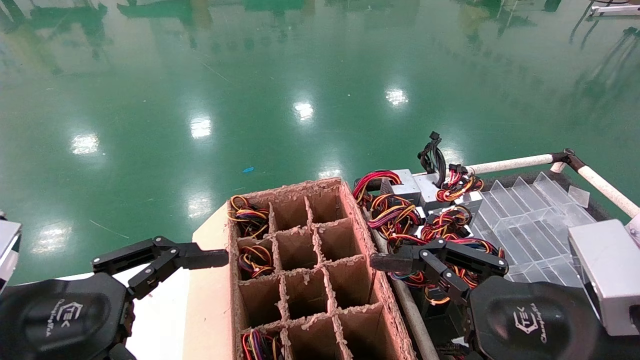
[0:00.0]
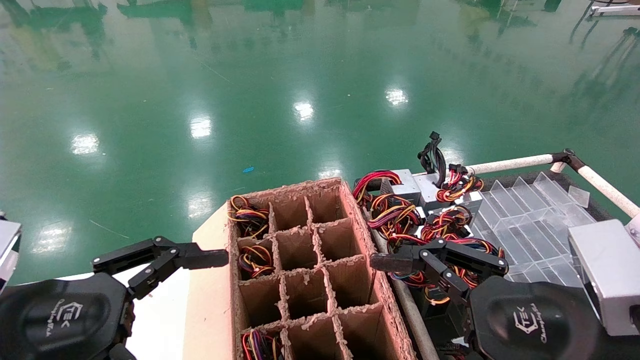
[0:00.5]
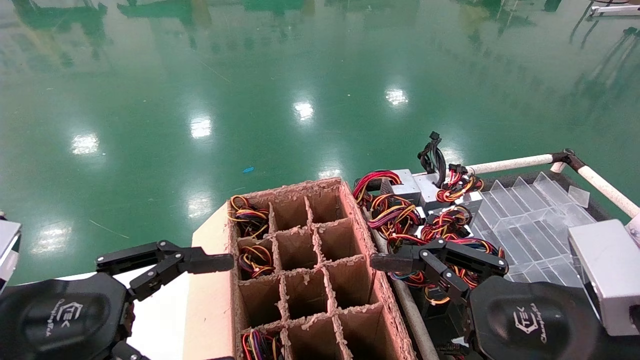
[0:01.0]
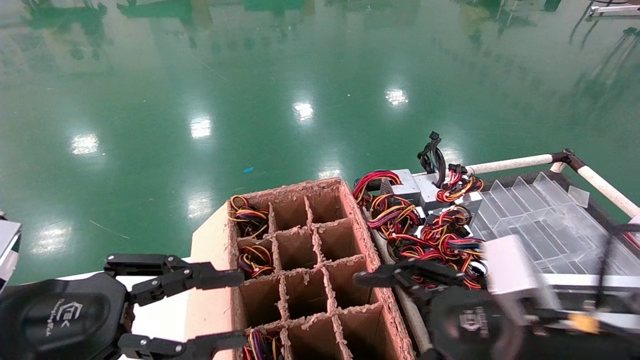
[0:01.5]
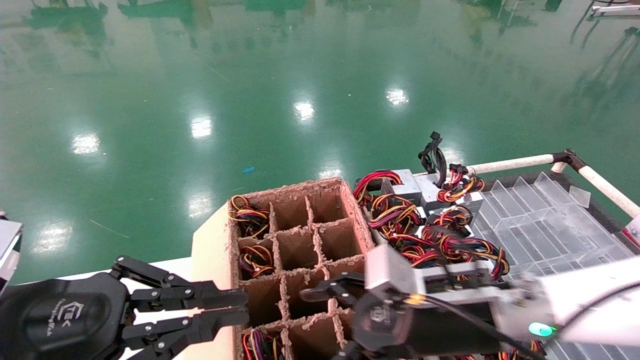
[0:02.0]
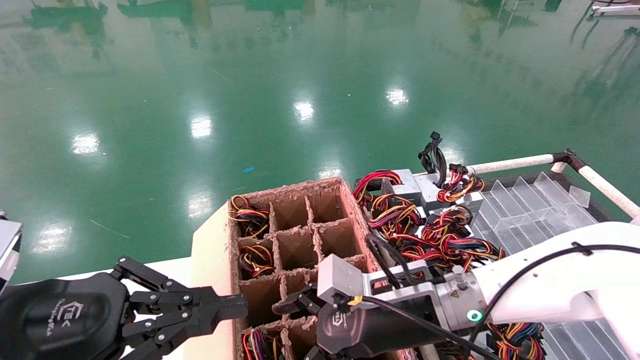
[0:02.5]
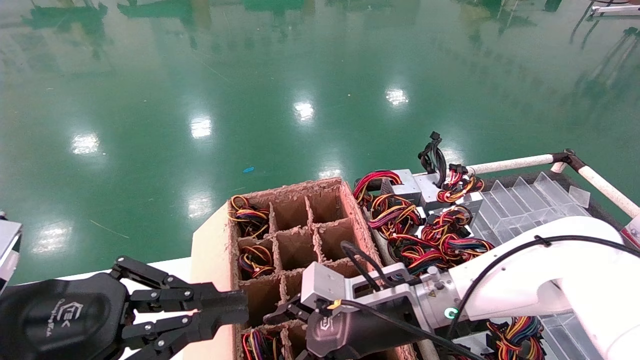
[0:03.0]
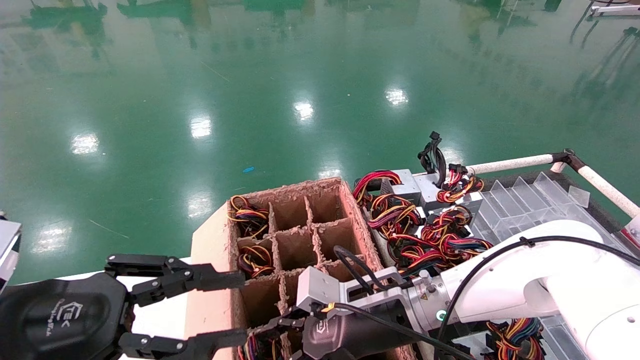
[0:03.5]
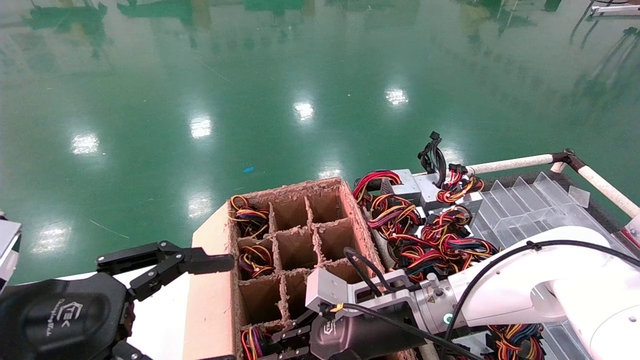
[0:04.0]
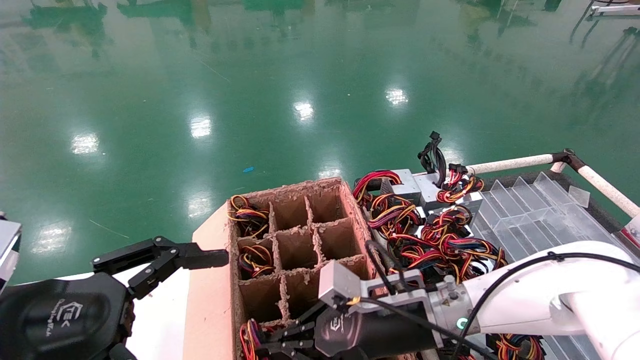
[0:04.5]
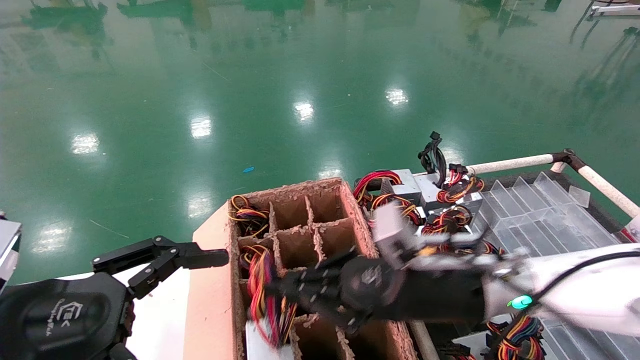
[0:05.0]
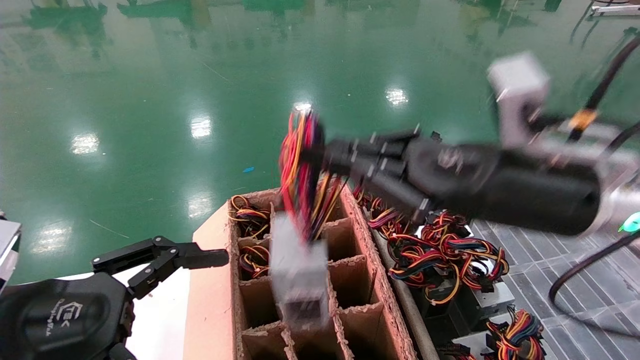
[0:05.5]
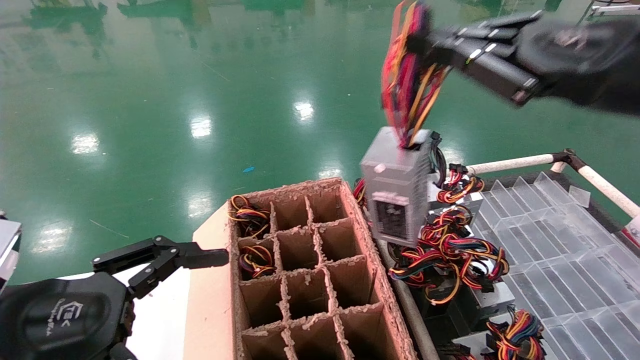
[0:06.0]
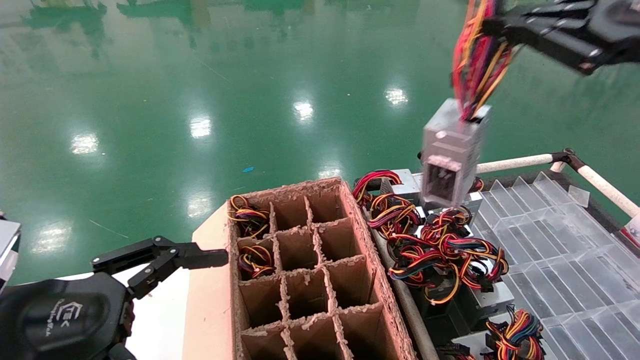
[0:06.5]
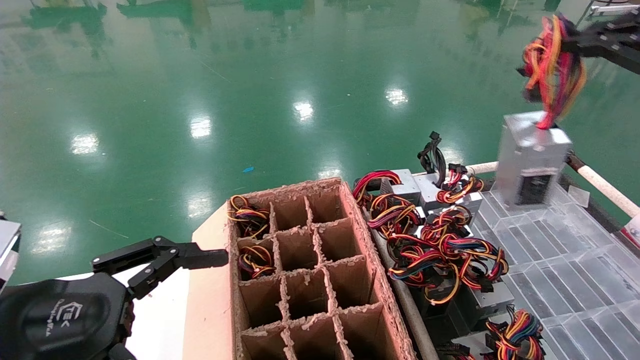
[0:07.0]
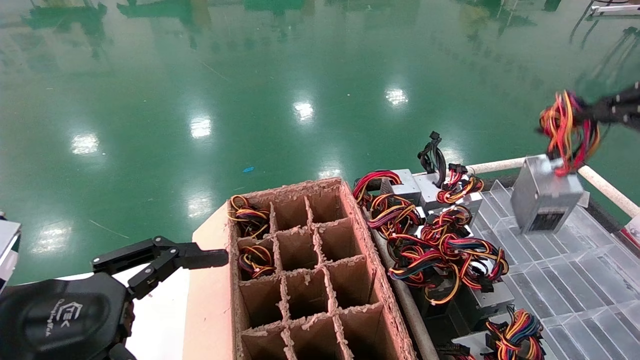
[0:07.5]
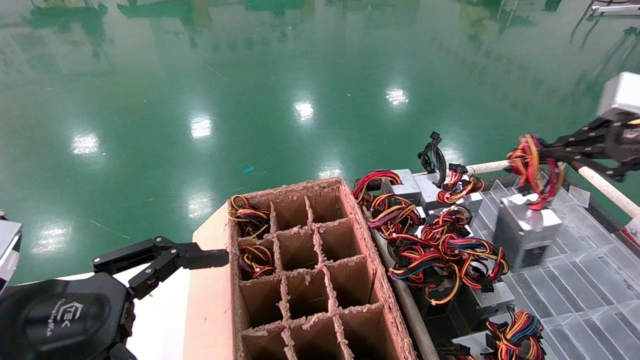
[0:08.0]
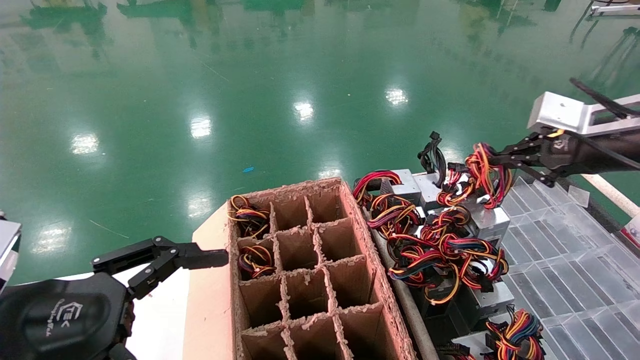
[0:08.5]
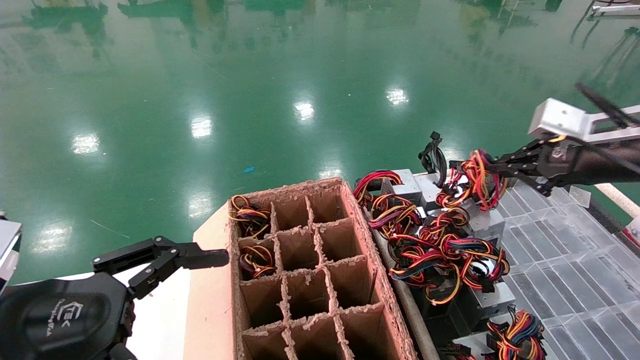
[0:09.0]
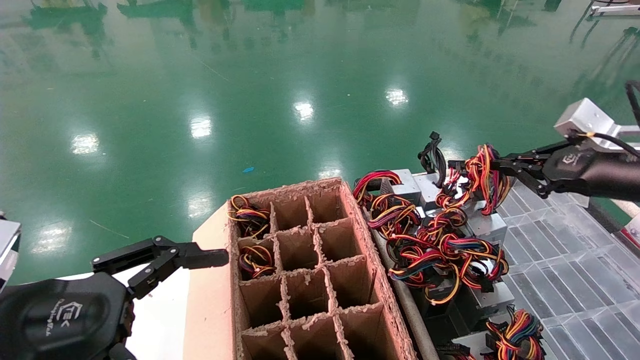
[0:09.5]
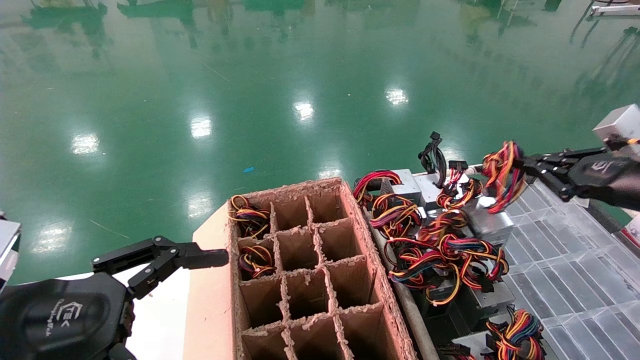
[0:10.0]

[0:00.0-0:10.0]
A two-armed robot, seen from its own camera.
Step, 0:01.5 to 0:04.0: Grab and lift the power supply from the large box.
0:00.0 to 0:02.0: The left gripper closes. The right gripper goes about 15 cm forward, to the left and downward.
0:02.0 to 0:04.0: The left gripper opens its fingers. The right gripper moves forward and to the left, approximately 10 cm, and closes.
0:04.0 to 0:06.0: The right gripper travels upward and to the right by about 35 cm.
0:06.0 to 0:08.0: The right gripper shifts approximately 15 cm to the right.
0:08.0 to 0:10.0: The right gripper moves downward, some 10 cm.

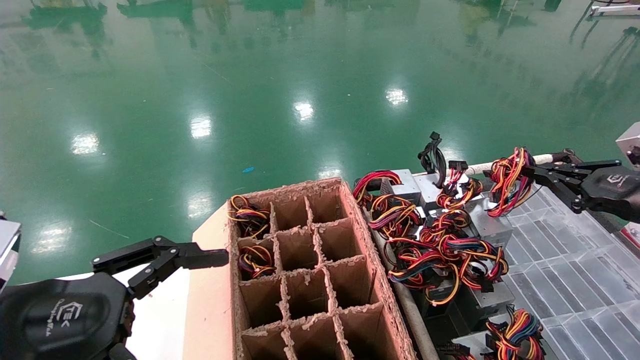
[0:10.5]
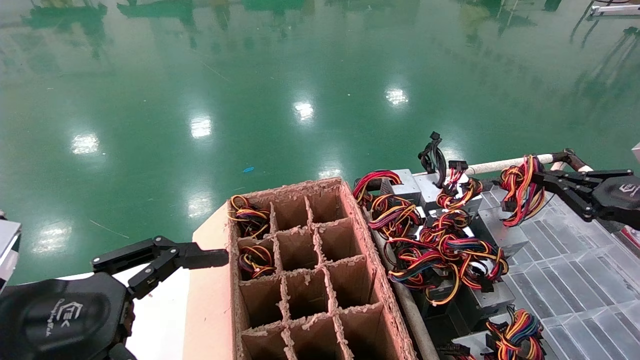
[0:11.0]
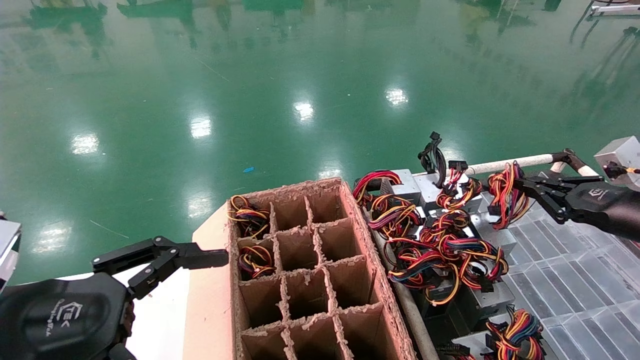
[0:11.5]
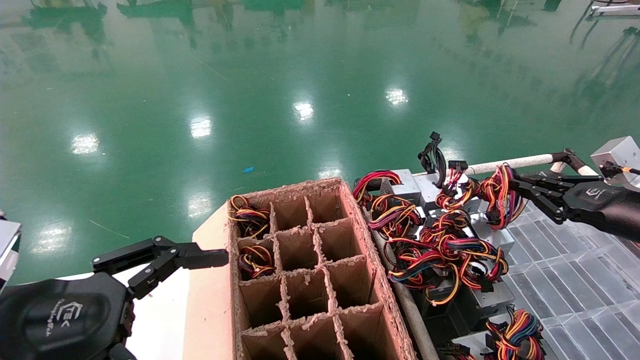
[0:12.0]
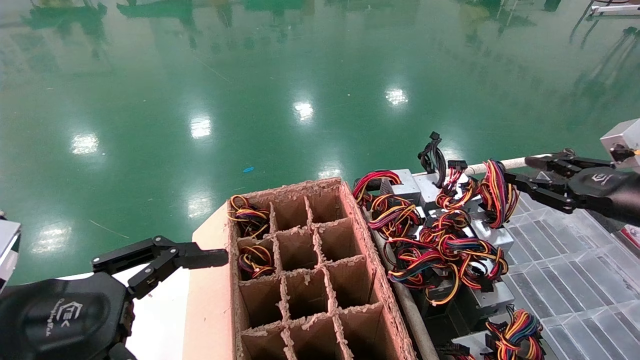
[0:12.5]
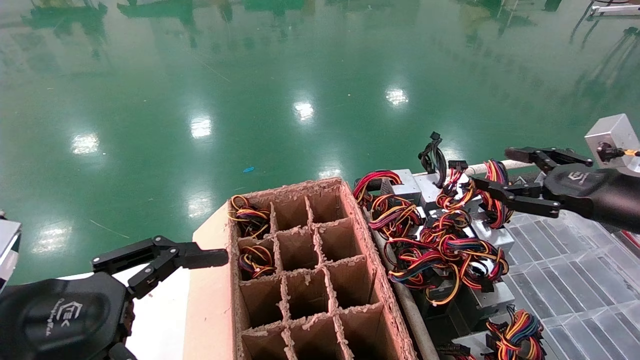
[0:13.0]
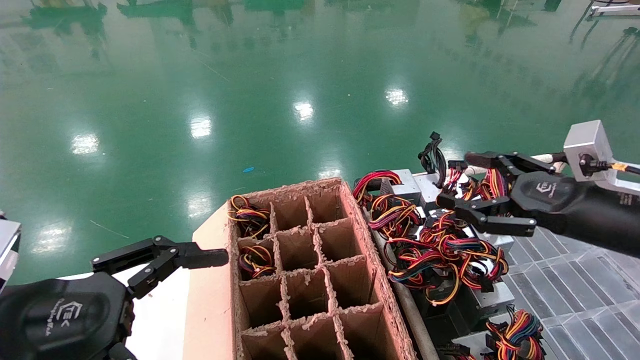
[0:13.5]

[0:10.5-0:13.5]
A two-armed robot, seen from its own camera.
0:10.5 to 0:12.0: The grippers move only a little.
0:12.0 to 0:13.5: The right gripper moves to the left, about 10 cm, and opens its fingers.

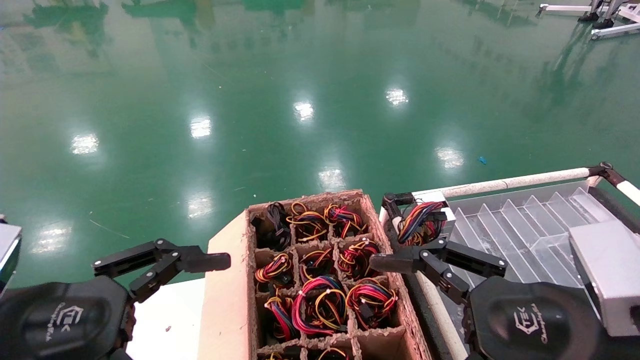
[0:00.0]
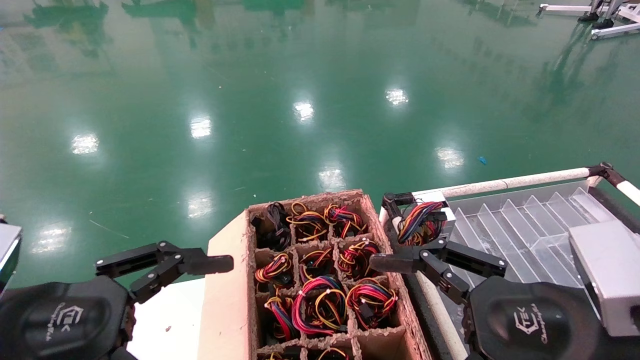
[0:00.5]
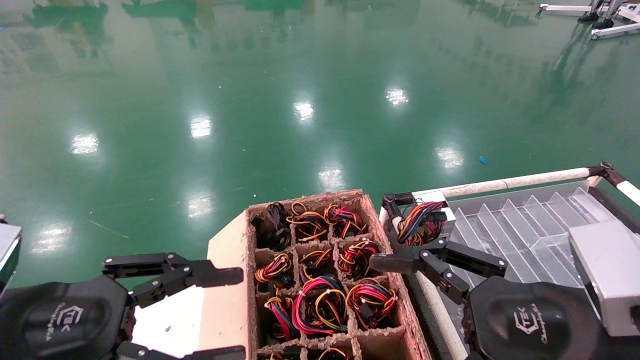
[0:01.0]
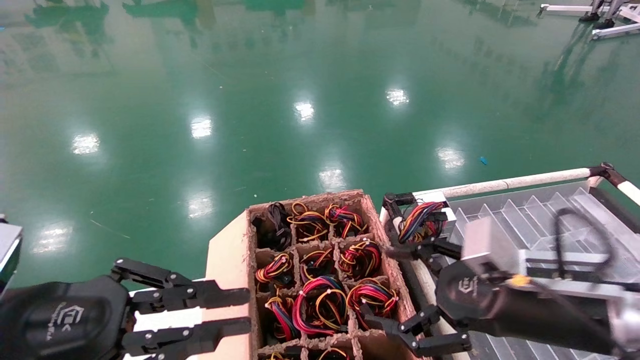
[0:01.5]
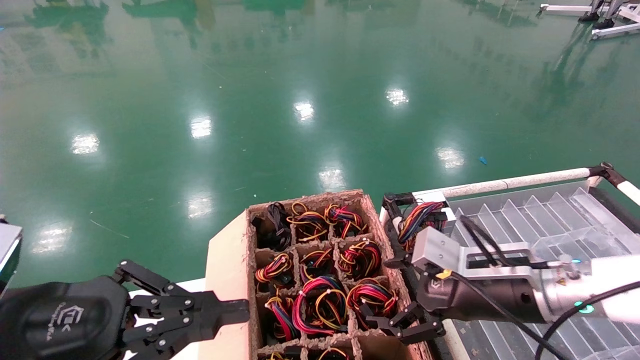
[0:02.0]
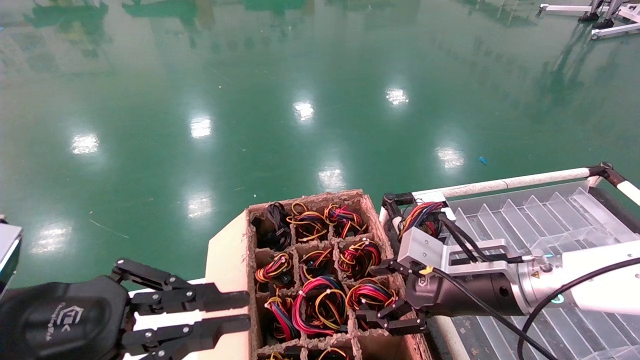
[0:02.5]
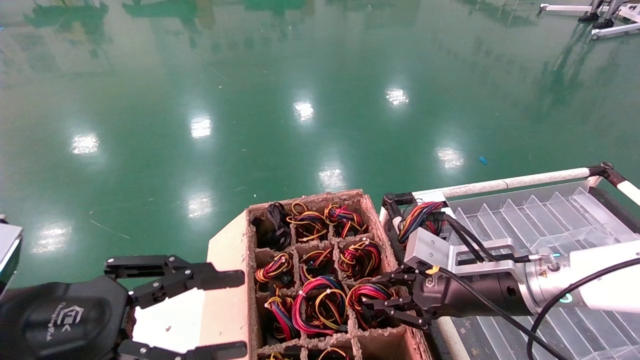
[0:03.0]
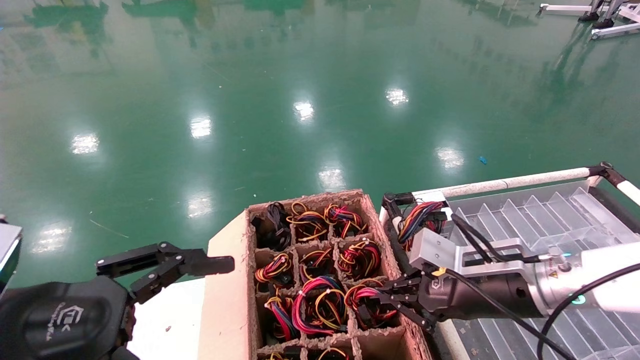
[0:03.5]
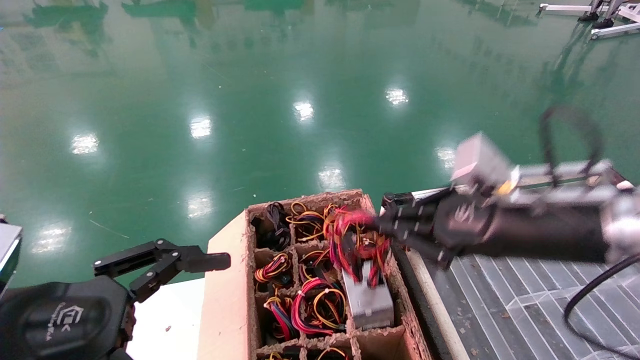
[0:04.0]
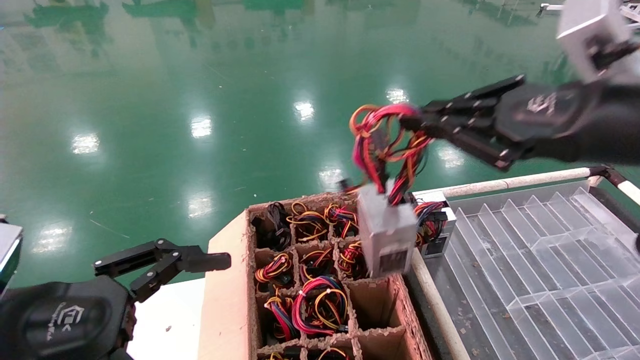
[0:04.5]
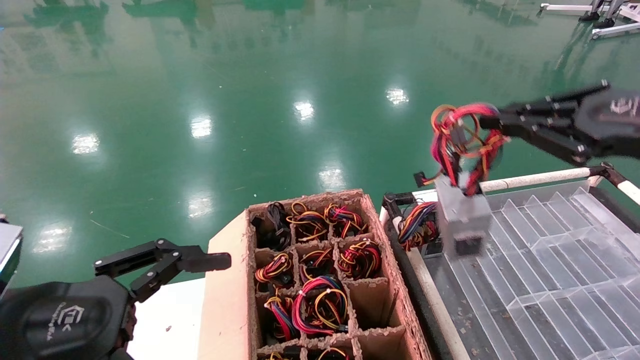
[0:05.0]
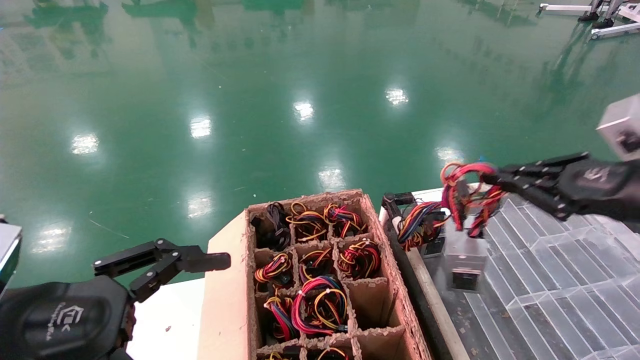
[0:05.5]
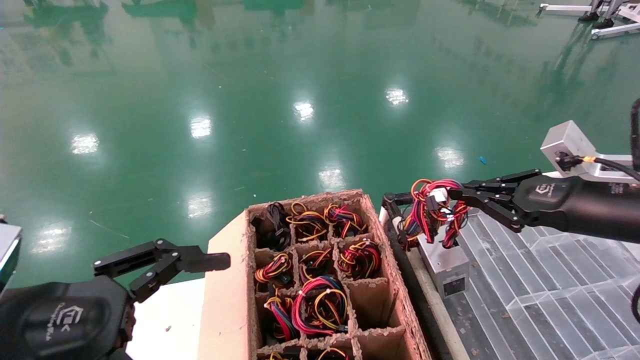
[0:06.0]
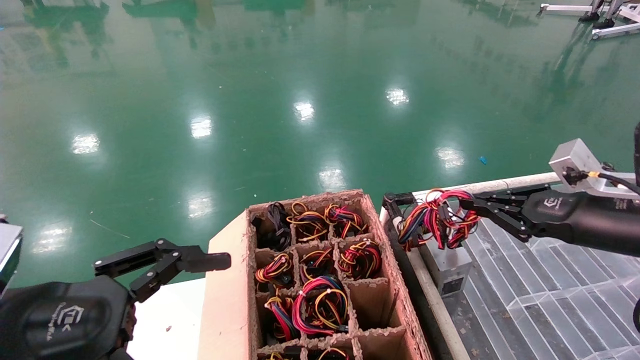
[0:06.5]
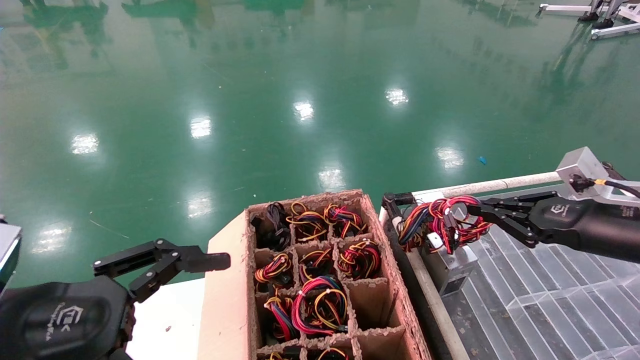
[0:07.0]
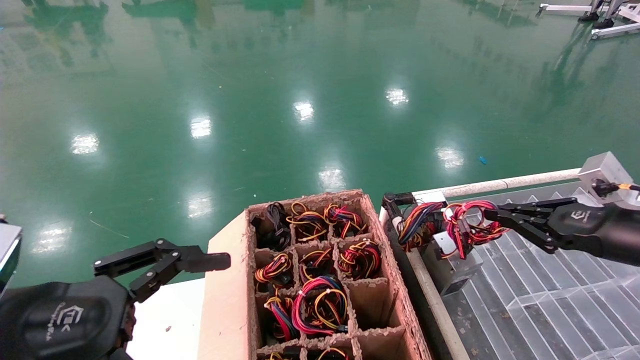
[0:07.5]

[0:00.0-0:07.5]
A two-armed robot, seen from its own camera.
Step, 0:01.0 to 0:03.0: Grab and lift the power supply from the large box.
0:00.0 to 0:02.0: The right gripper travels forward by some 15 cm. The left gripper closes up.
0:02.0 to 0:04.0: The left gripper opens its fingers. The right gripper goes about 10 cm upward, and closes.
0:04.0 to 0:05.5: The right gripper moves to the right, roughly 15 cm.
0:05.5 to 0:07.5: The right gripper shifts approximately 5 cm downward.
